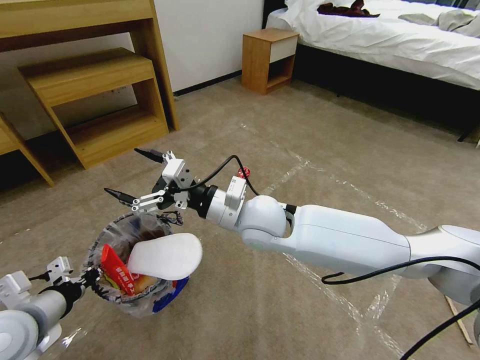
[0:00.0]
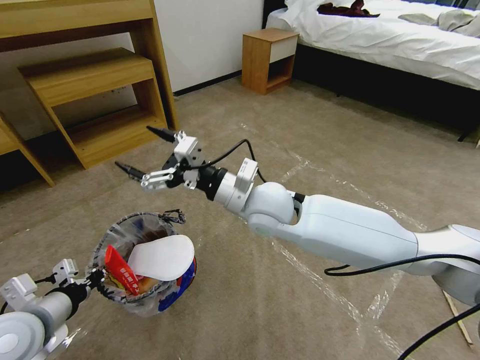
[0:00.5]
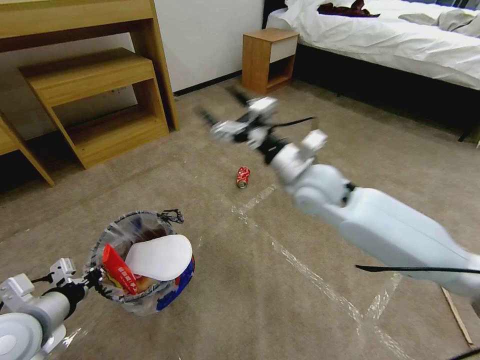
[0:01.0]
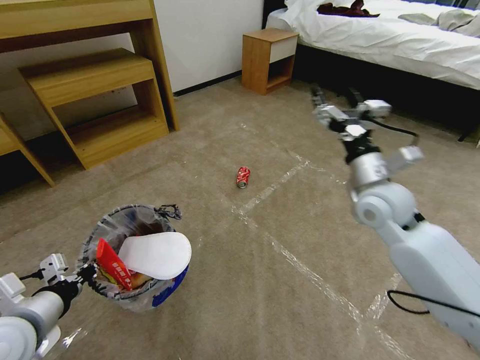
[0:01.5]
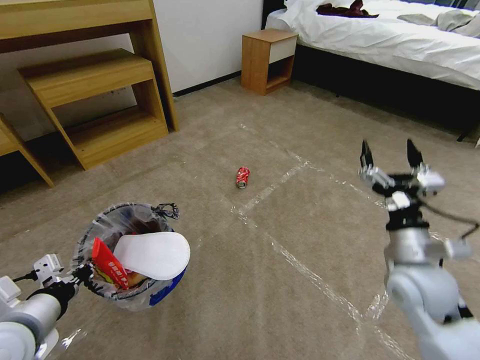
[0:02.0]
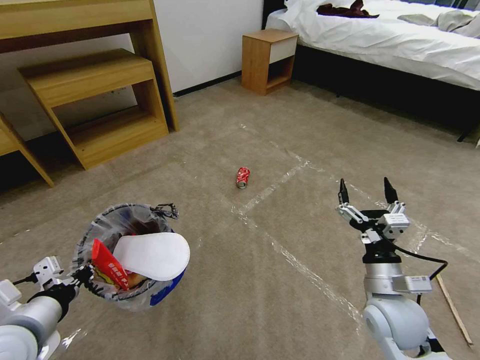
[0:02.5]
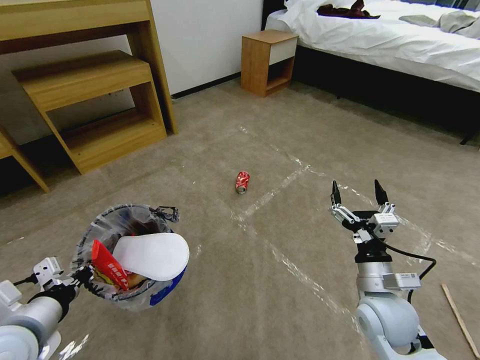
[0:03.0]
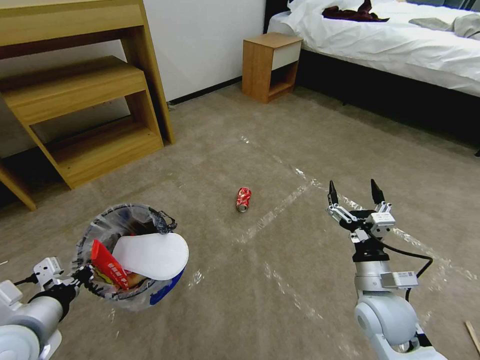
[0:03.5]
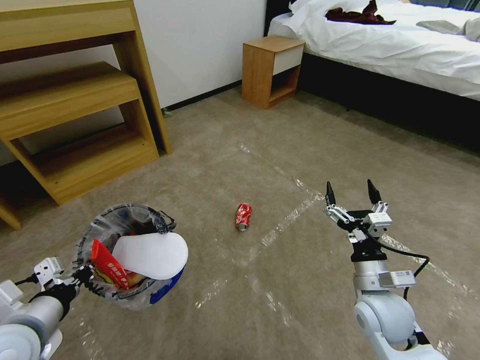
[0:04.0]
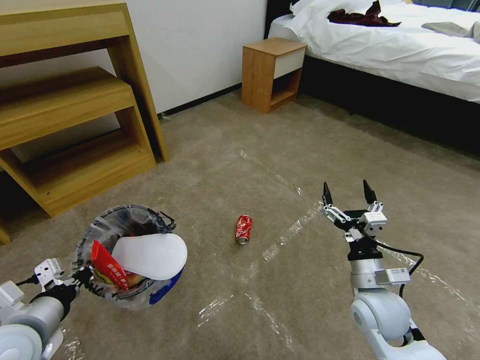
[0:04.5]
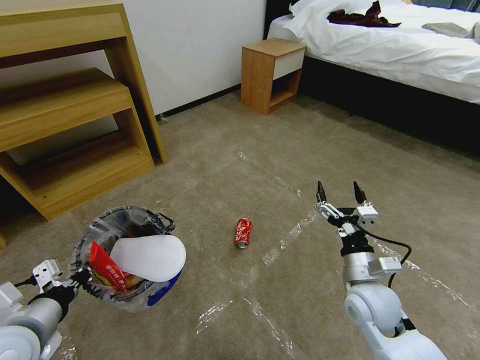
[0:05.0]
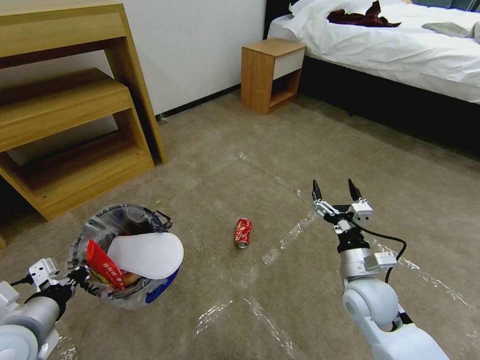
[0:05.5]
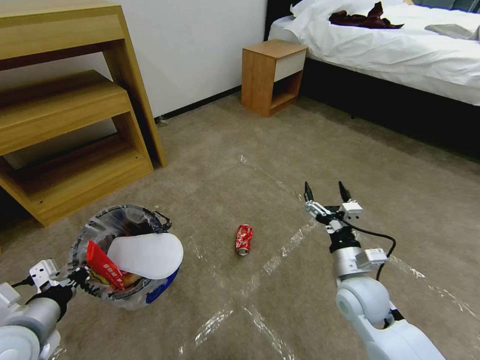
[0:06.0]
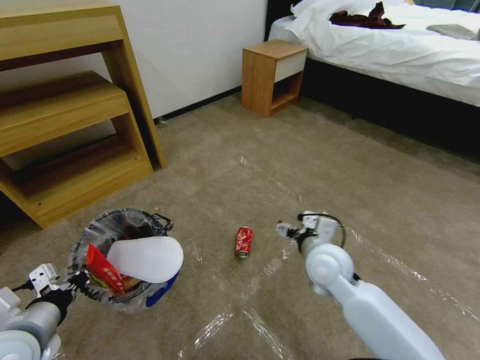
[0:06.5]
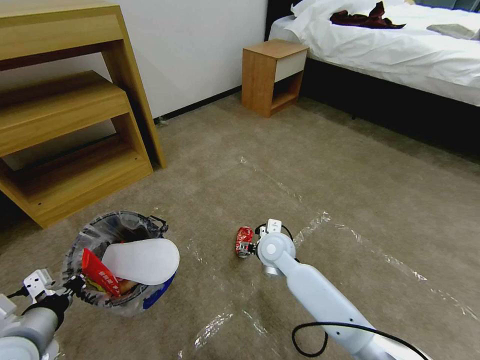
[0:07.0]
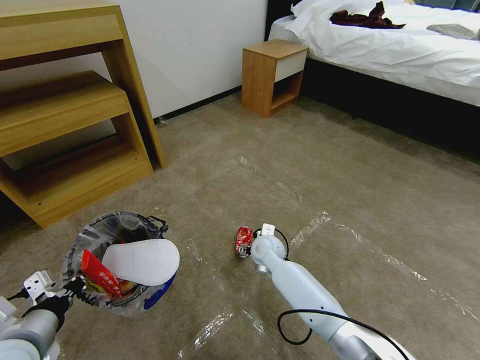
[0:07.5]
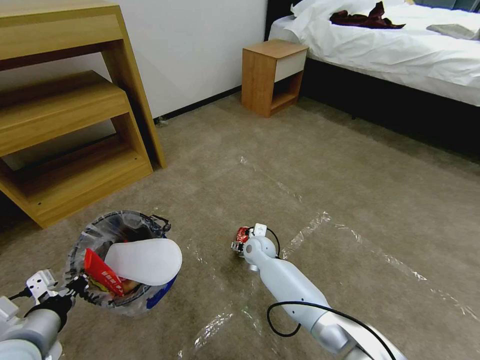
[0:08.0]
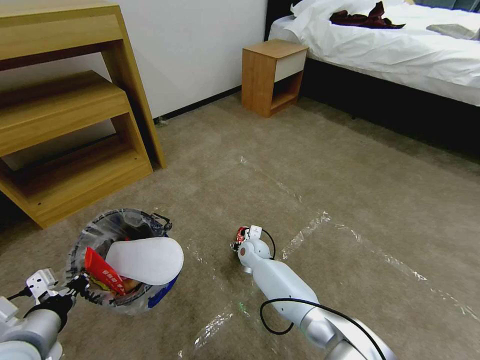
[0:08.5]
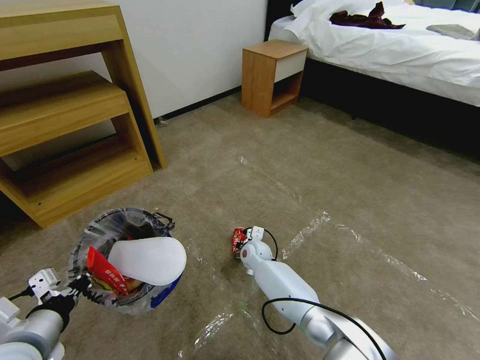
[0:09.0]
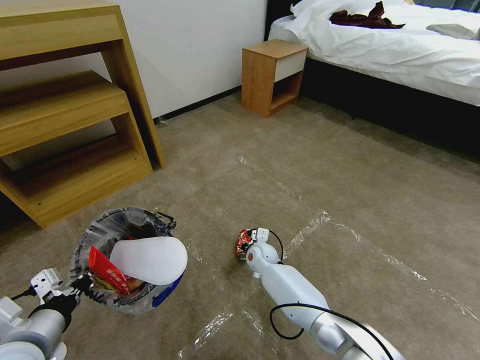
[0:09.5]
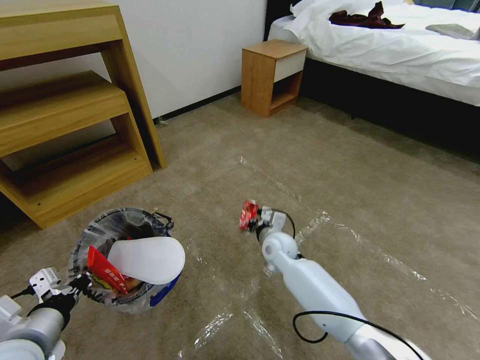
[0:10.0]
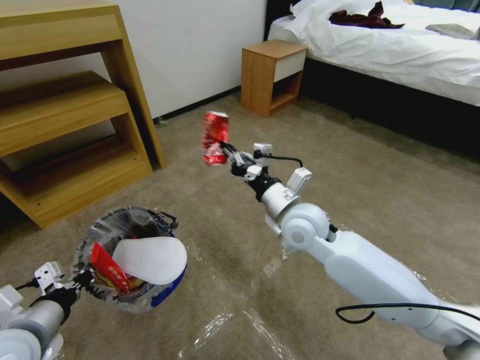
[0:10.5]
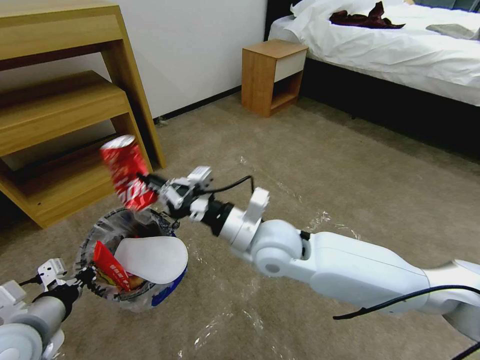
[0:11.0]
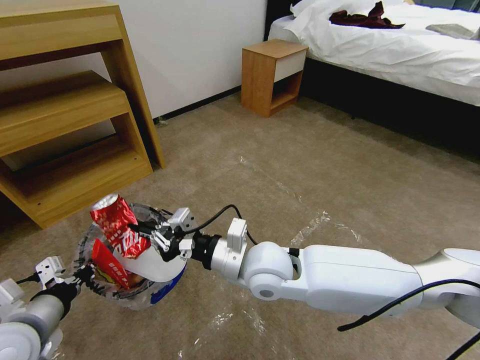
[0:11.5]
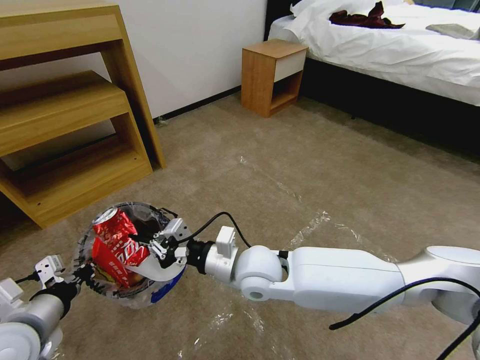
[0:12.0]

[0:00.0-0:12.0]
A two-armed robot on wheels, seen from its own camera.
Task of the whole recording: Pick up the trash bin and place the garbage on the floor into it.
0:00.0 to 0:02.0: The right gripper heads to the right, covering approximately 30 cm.
0:02.0 to 0:04.0: The right gripper heads downward, covering about 10 cm.
0:06.0 to 0:08.0: The right gripper shifts approximately 30 cm to the left, forward and downward.
0:08.0 to 0:10.0: The right gripper shifts by roughly 5 cm, and closes its fingers.
0:10.0 to 0:12.0: The right gripper travels upward, backward and to the left by roughly 20 cm.

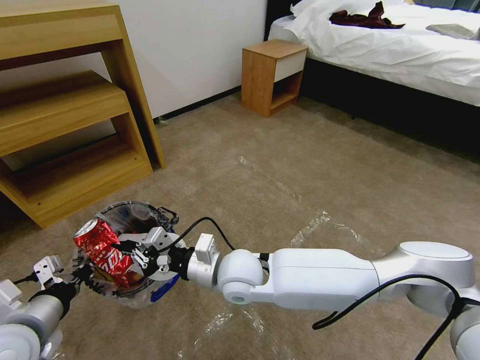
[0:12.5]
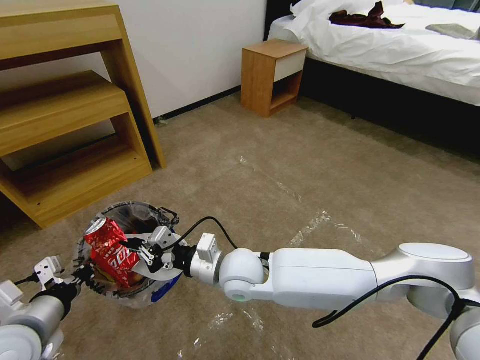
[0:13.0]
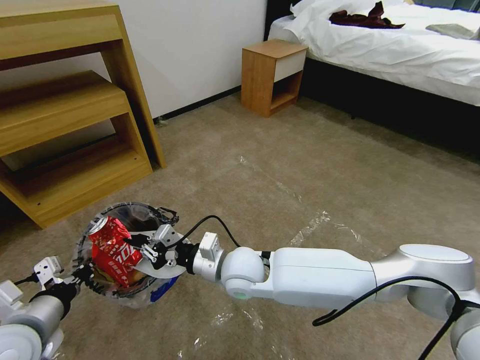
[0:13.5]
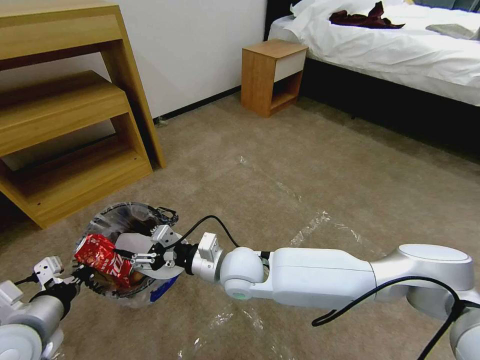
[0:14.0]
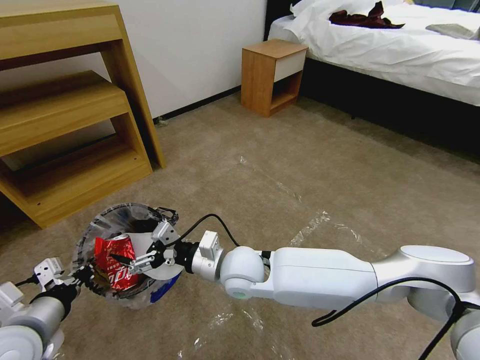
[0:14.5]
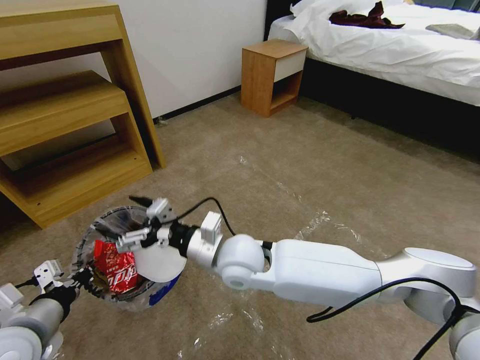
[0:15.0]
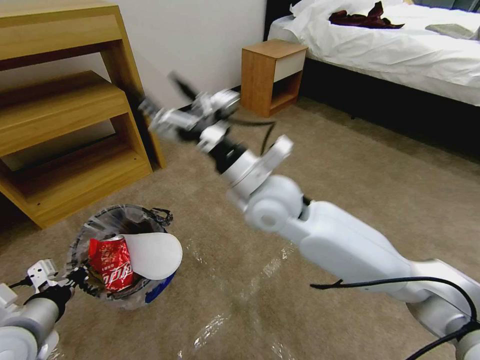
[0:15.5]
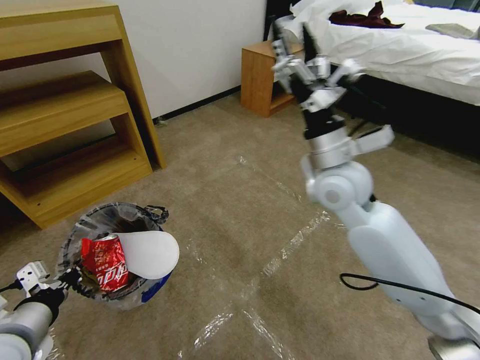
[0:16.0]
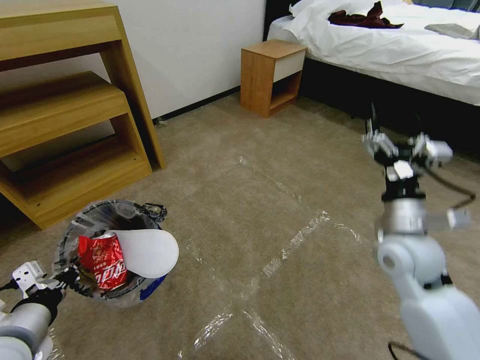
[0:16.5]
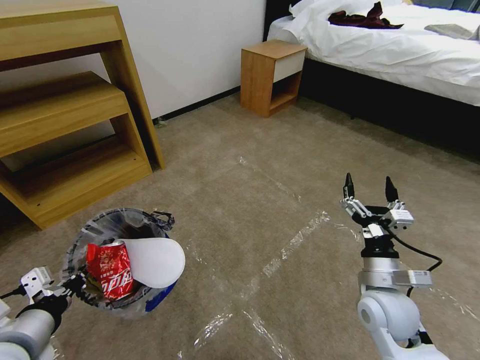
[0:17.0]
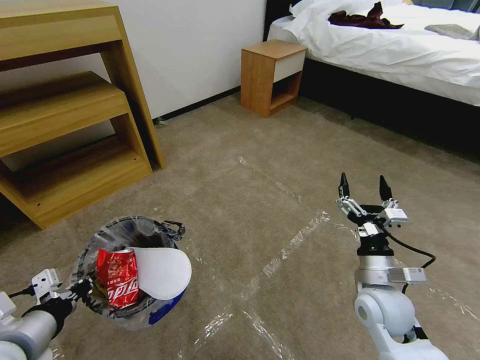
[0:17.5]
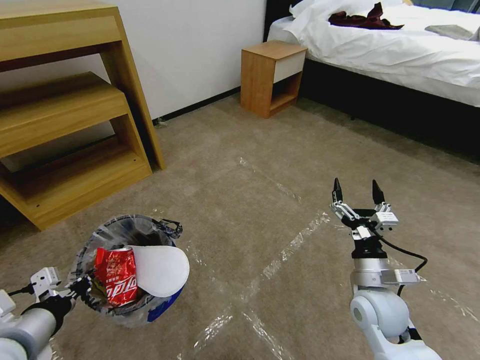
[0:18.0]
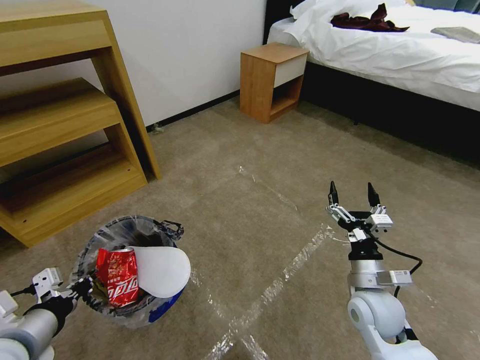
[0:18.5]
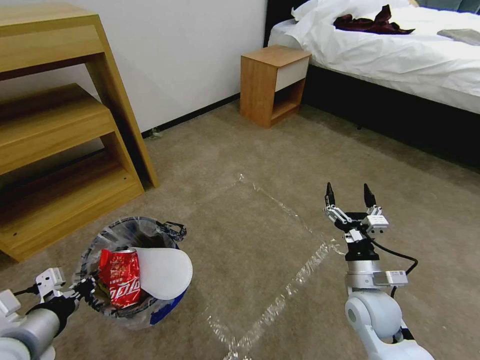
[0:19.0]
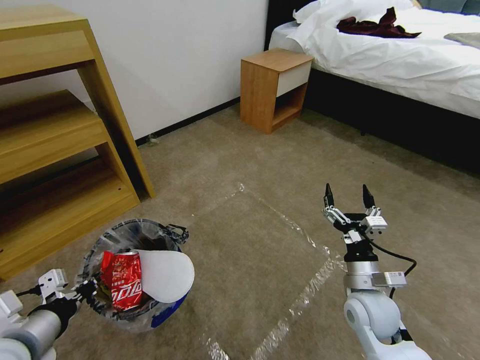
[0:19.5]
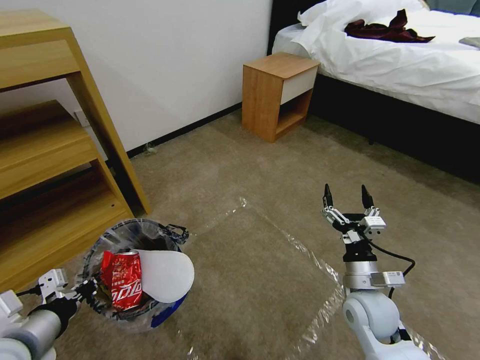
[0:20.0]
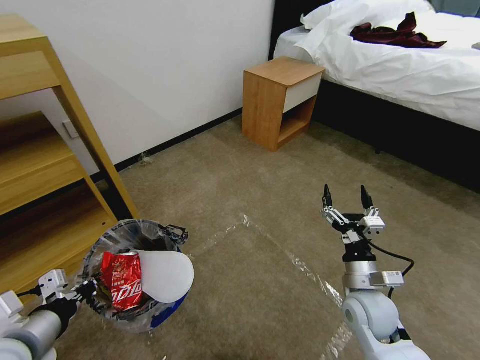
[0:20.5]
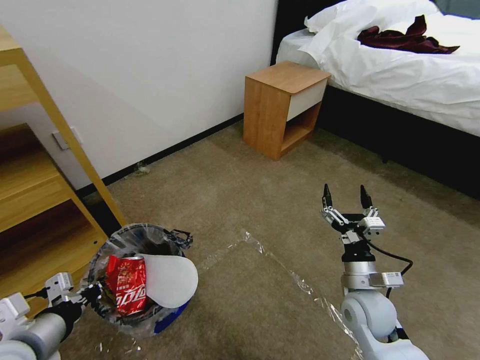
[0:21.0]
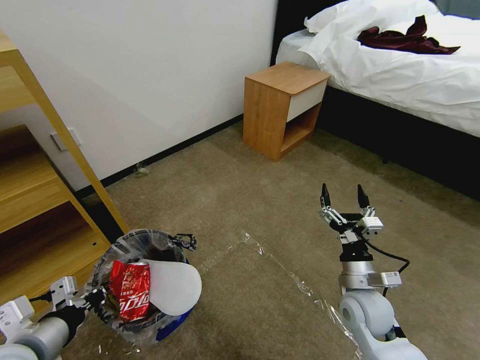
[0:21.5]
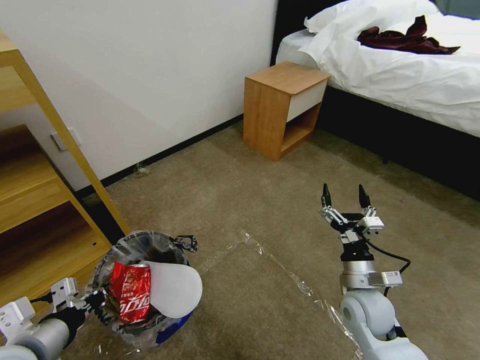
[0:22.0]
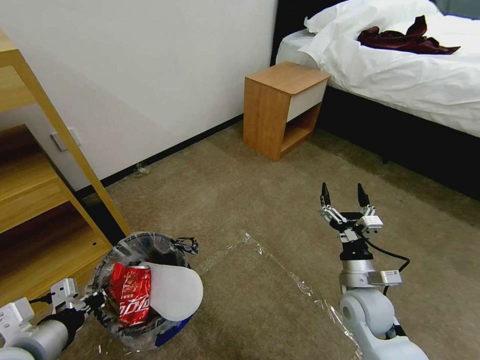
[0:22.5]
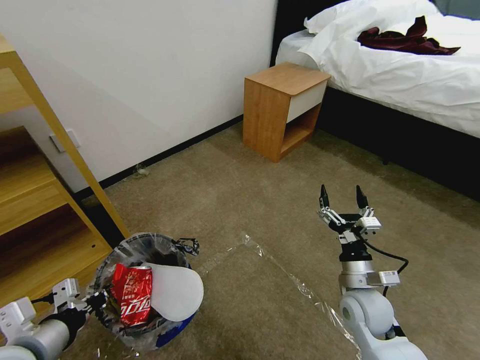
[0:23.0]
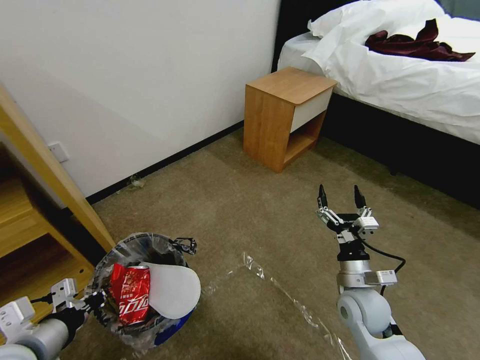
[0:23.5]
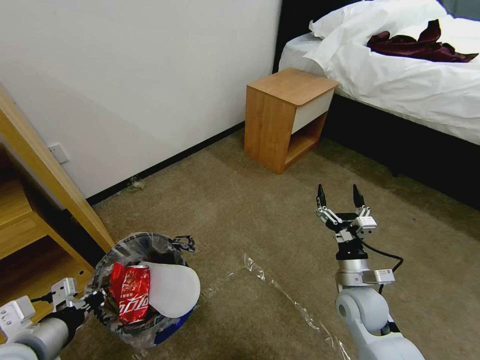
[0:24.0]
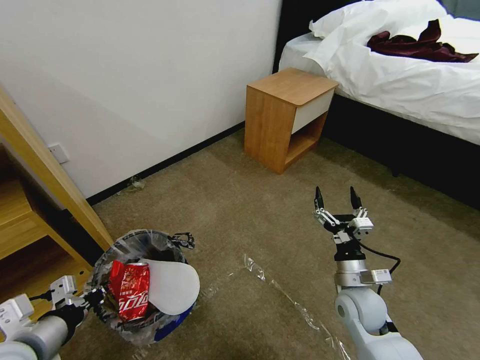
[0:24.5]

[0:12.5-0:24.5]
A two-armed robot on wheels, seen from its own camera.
Task of the whole recording: Pick up the trash bin and place the garbage on the floor into it.
0:12.5 to 0:14.5: The right gripper opens its fingers.
0:14.5 to 0:16.5: The right gripper shifts about 30 cm to the right.
0:16.5 to 0:18.5: The right gripper moves downward and backward, about 15 cm.
